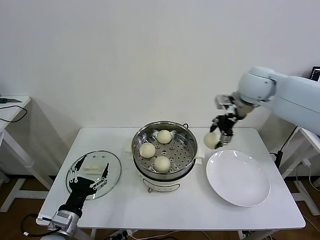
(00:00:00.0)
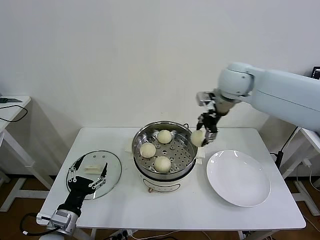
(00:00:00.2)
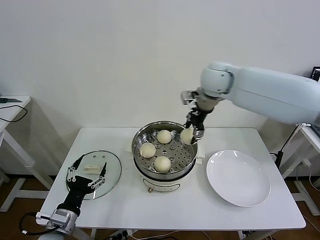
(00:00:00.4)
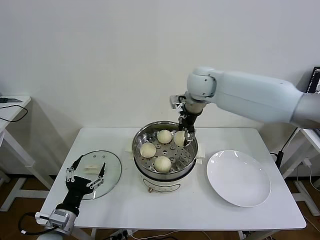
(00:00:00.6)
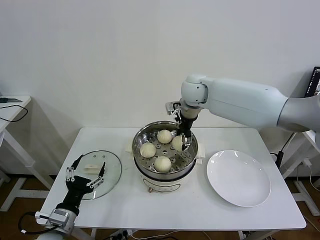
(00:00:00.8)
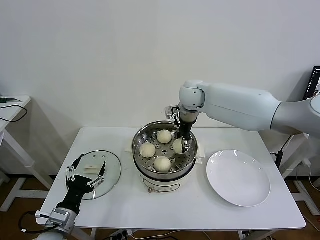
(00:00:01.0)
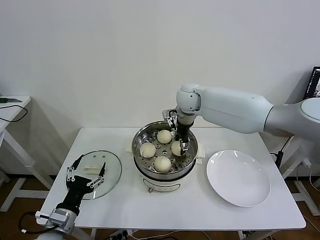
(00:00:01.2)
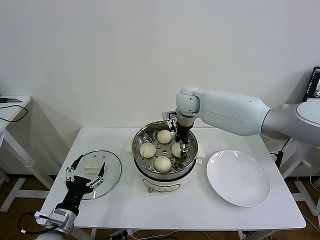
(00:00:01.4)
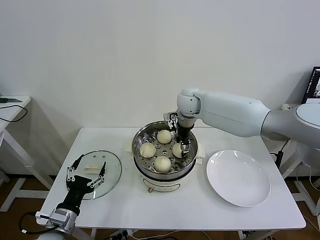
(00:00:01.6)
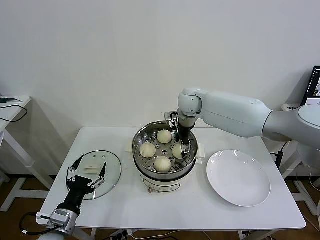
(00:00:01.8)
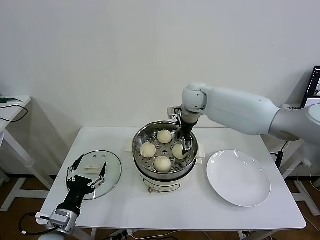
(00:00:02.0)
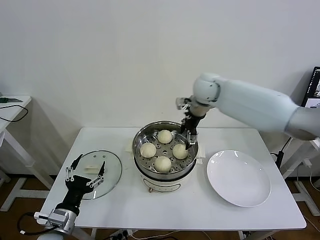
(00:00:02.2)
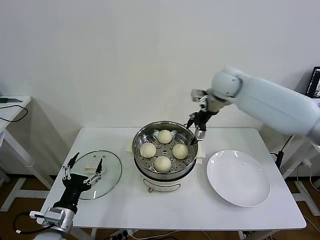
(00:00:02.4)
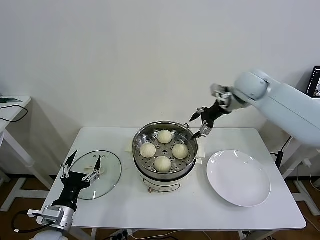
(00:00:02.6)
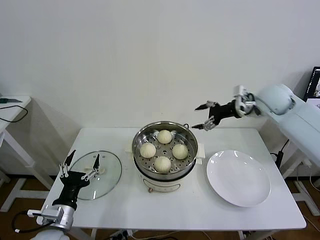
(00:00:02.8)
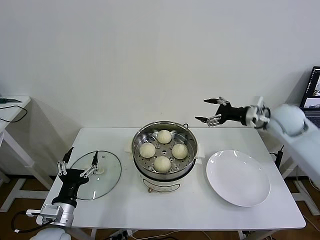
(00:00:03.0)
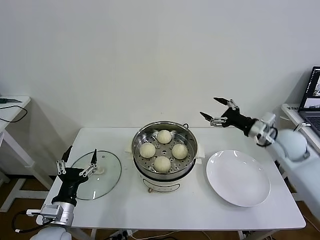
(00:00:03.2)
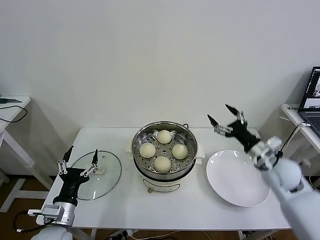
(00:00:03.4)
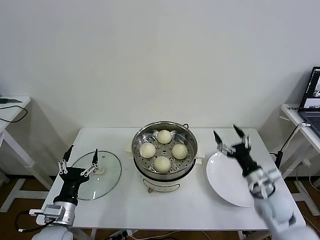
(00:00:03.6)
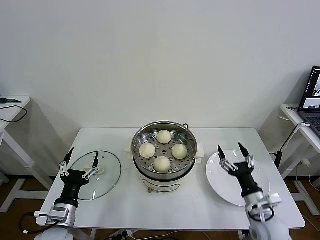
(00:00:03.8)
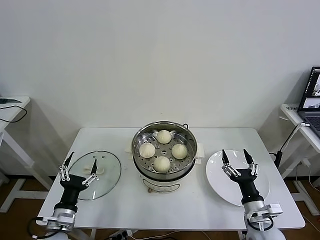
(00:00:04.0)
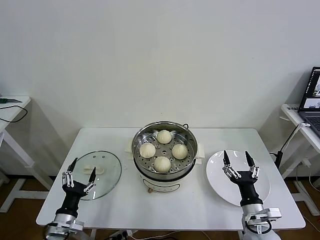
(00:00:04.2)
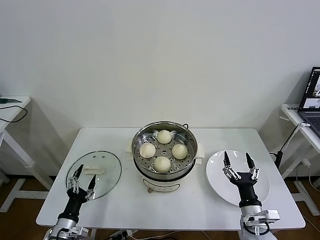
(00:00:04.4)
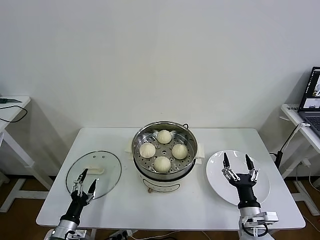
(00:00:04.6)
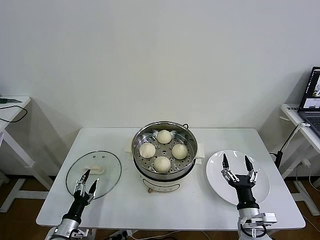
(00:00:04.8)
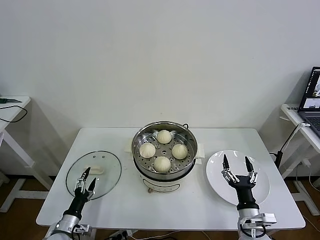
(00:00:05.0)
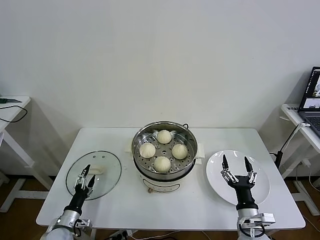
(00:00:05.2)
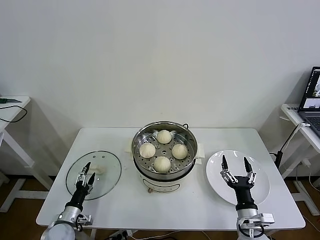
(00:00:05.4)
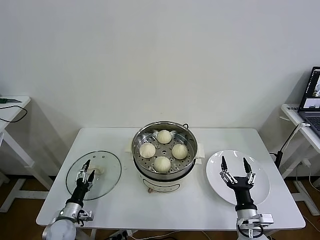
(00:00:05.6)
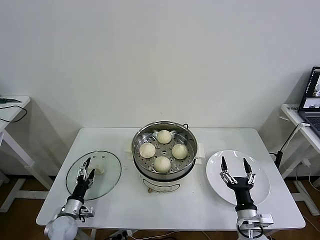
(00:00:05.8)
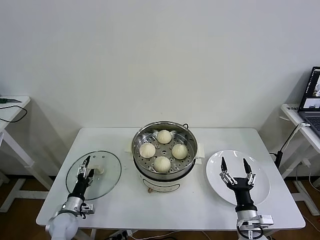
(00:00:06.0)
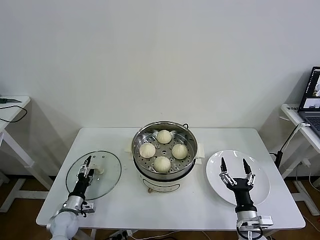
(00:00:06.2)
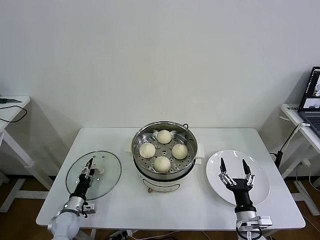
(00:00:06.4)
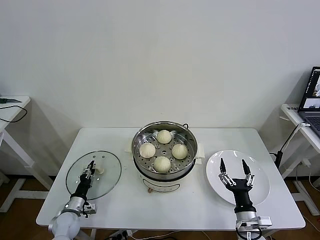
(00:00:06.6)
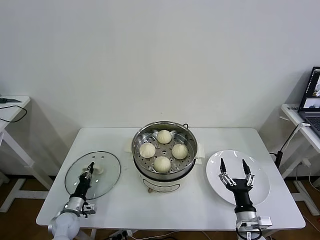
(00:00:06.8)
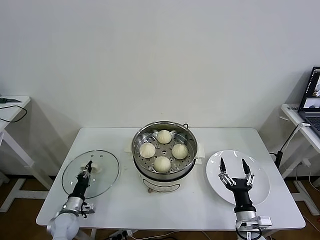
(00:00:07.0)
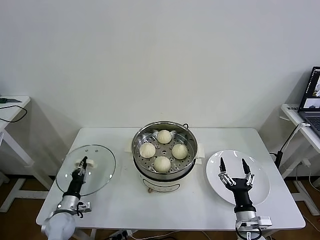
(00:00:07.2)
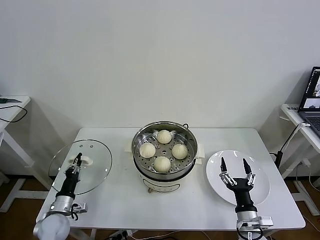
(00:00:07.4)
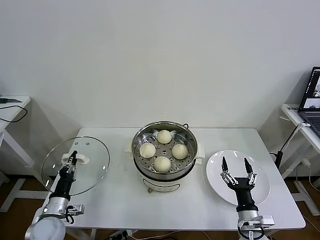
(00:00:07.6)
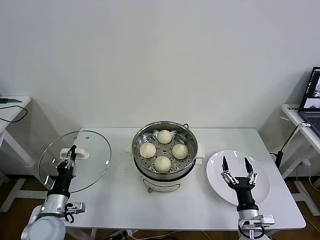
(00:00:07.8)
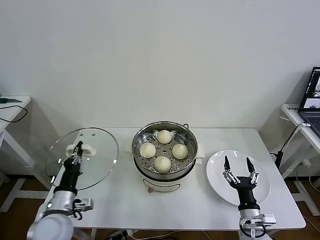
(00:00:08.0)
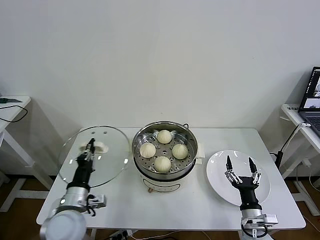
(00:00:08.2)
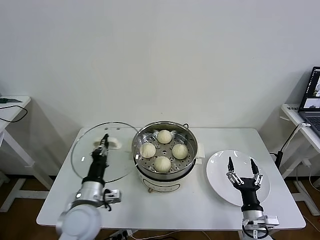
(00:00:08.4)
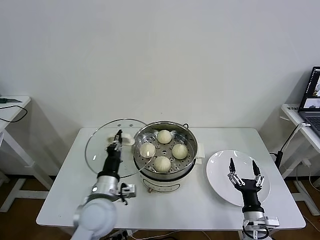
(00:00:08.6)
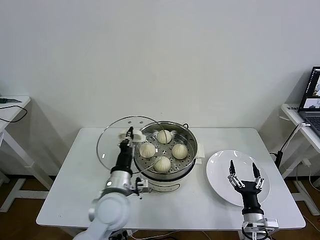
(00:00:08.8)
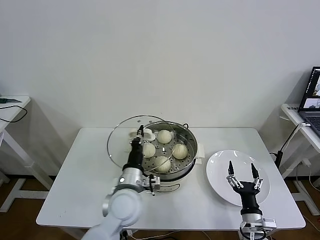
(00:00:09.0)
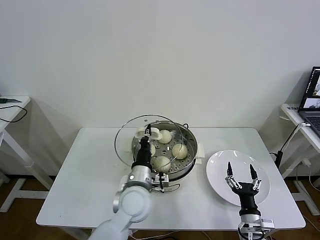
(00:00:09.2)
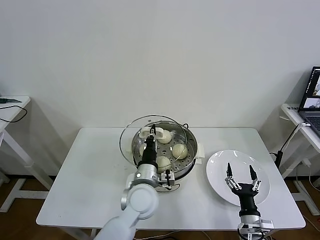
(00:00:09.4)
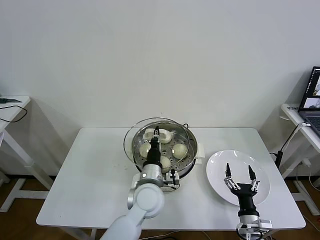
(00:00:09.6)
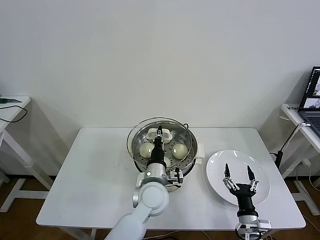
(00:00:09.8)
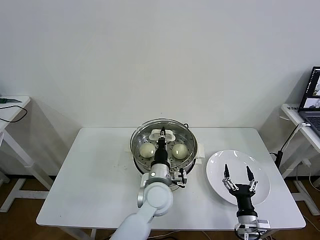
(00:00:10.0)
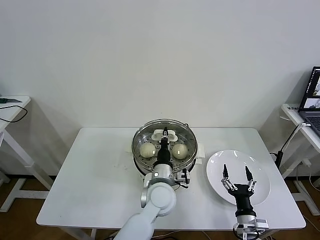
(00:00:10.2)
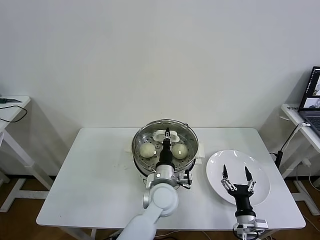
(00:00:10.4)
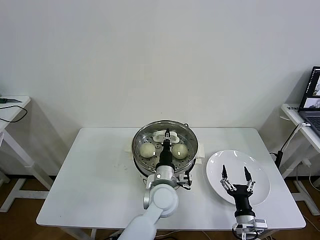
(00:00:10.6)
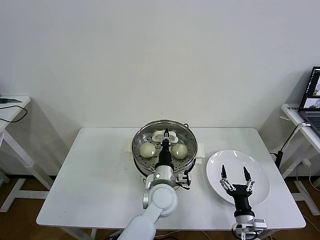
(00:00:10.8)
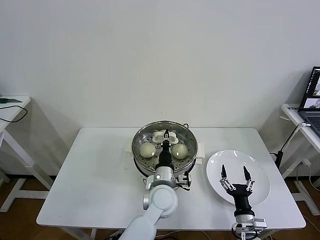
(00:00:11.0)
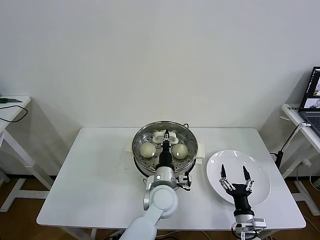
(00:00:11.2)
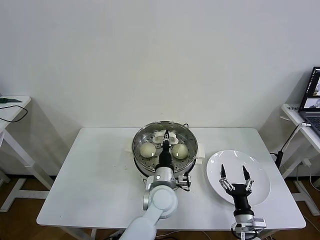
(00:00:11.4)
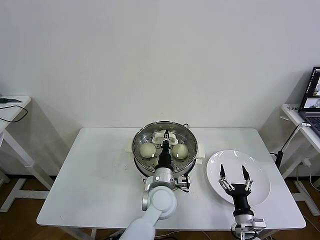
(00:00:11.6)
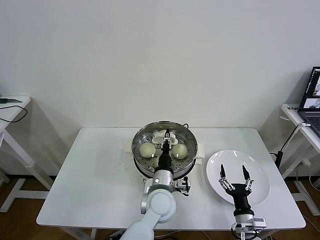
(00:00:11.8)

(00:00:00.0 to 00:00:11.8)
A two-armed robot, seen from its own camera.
Task of the whole recording: take steamed baozi put them in steamer then cover it.
Step, 00:00:00.0 - 00:00:01.8: Place the baozi on the steamer with right gripper.
Step, 00:00:02.2 - 00:00:06.8: Grasp the pot lid with left gripper.
Step, 00:00:07.0 - 00:00:11.8: Place the pot lid on the steamer with left gripper.
00:00:00.0 - 00:00:01.4: The right gripper heads to the left, downward and forward, covering approximately 20 cm.
00:00:01.4 - 00:00:03.0: The right gripper travels to the right and backward by approximately 30 cm, and opens up.
00:00:03.0 - 00:00:04.4: The left gripper heads downward, covering roughly 10 cm, while the right gripper shifts roughly 35 cm backward and downward.
00:00:04.4 - 00:00:06.0: The left gripper moves forward and downward, approximately 10 cm.
00:00:06.0 - 00:00:07.4: The left gripper closes up.
00:00:07.4 - 00:00:08.8: The left gripper goes about 30 cm to the right and upward.
00:00:08.8 - 00:00:10.4: The left gripper is displaced to the right by approximately 15 cm.
00:00:10.4 - 00:00:11.8: There are only small adjustments of the grippers.

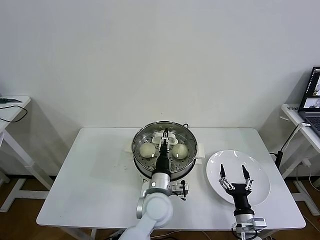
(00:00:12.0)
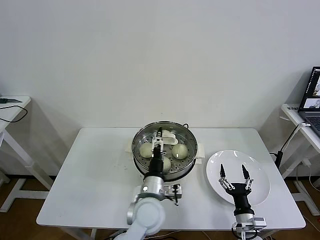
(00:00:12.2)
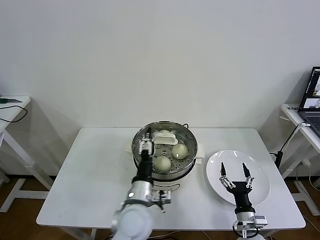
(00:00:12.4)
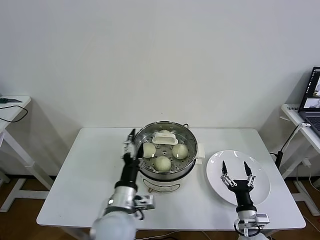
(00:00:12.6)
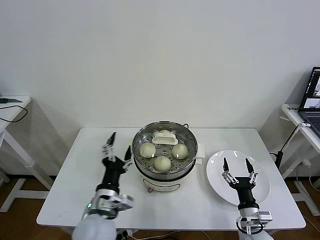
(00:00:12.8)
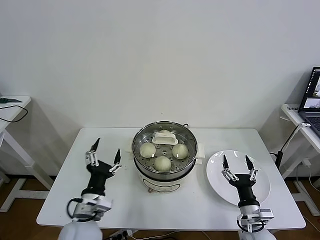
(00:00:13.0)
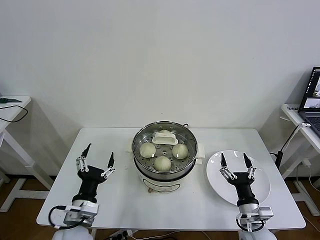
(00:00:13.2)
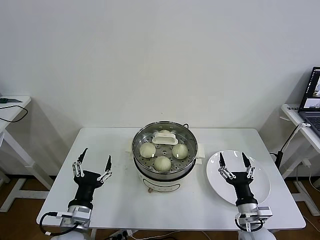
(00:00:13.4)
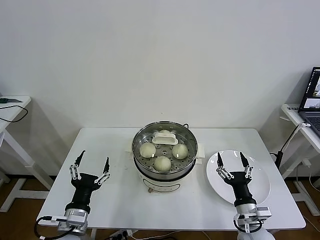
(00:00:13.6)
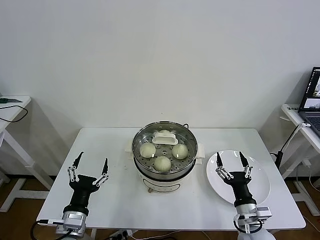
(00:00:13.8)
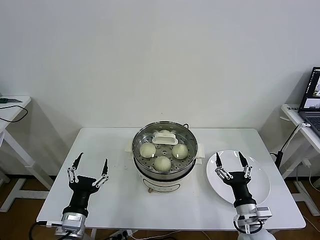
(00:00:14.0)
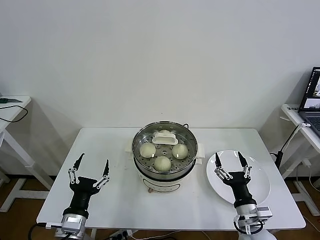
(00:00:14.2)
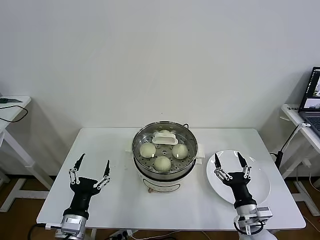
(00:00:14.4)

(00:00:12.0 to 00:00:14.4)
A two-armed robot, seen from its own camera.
Task of the whole recording: take steamed baozi put them in steamer then cover it.
00:00:12.0 - 00:00:13.2: The right gripper is displaced upward by approximately 5 cm, while the left gripper shifts approximately 25 cm to the left and backward, and opens up.
00:00:13.2 - 00:00:14.4: The grippers make only small movements.
